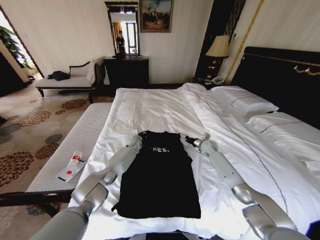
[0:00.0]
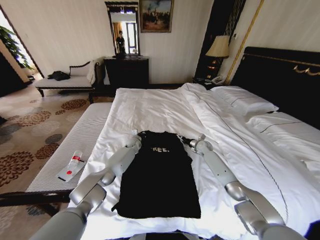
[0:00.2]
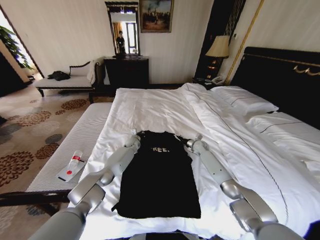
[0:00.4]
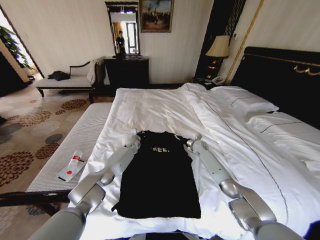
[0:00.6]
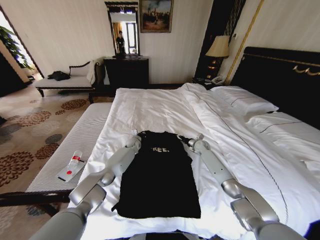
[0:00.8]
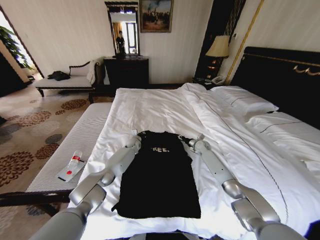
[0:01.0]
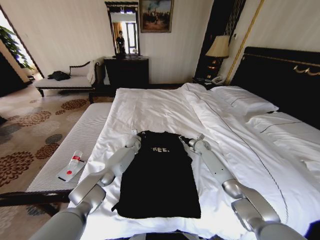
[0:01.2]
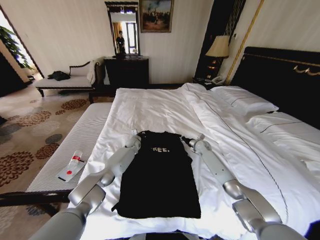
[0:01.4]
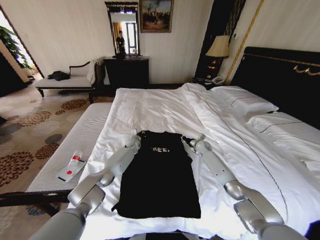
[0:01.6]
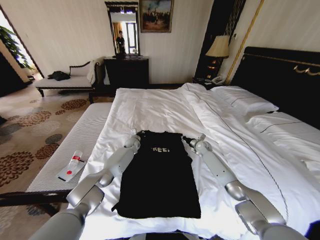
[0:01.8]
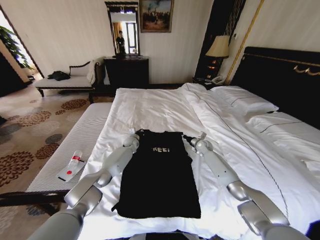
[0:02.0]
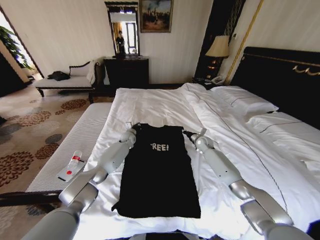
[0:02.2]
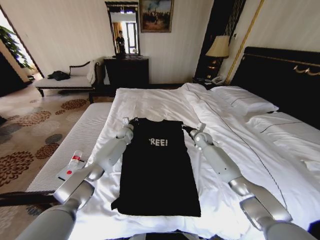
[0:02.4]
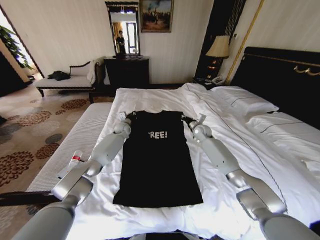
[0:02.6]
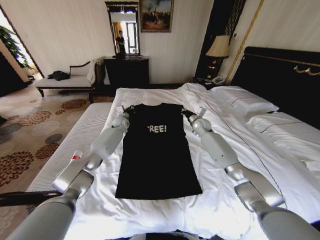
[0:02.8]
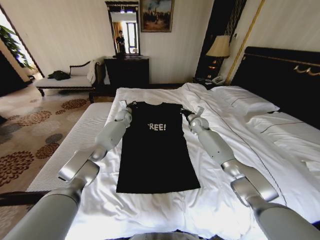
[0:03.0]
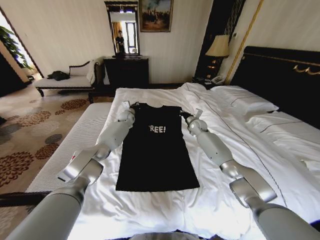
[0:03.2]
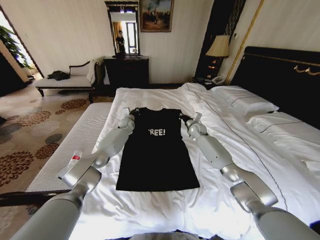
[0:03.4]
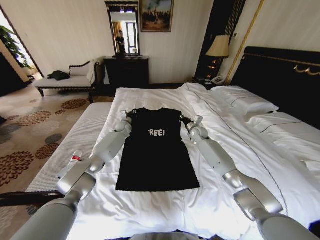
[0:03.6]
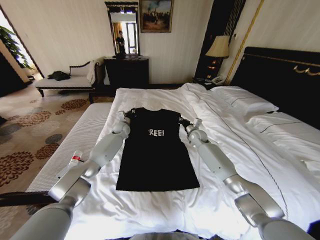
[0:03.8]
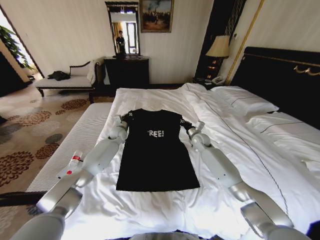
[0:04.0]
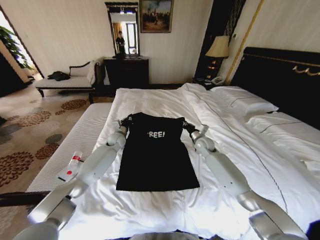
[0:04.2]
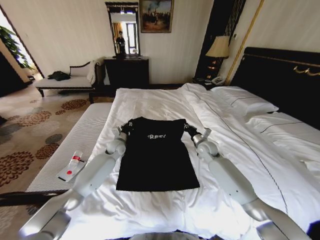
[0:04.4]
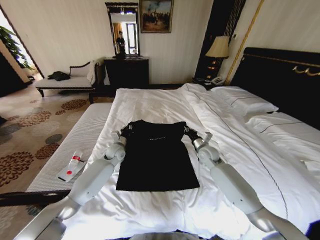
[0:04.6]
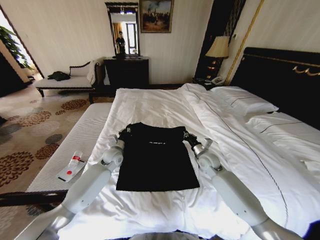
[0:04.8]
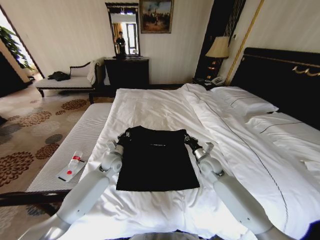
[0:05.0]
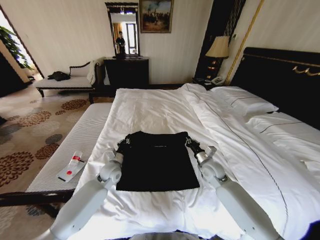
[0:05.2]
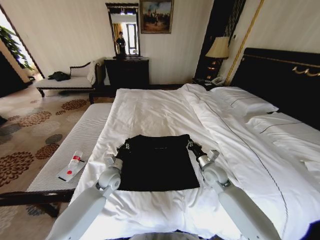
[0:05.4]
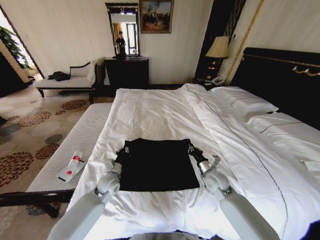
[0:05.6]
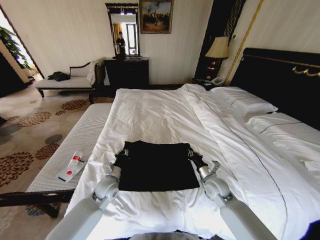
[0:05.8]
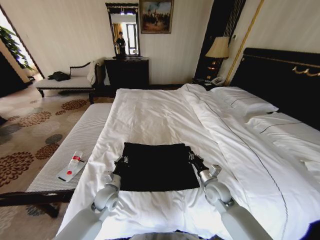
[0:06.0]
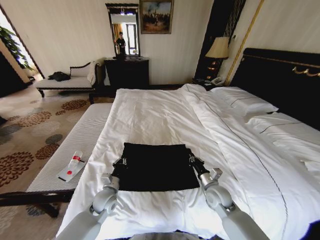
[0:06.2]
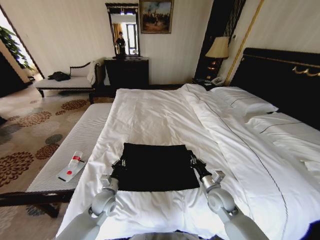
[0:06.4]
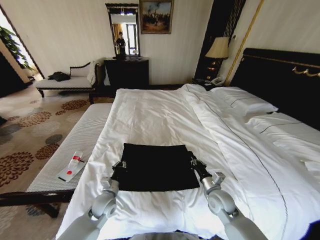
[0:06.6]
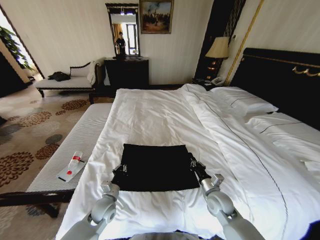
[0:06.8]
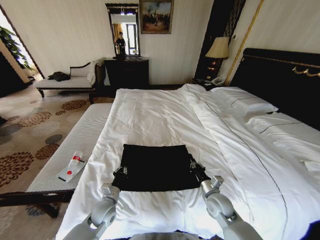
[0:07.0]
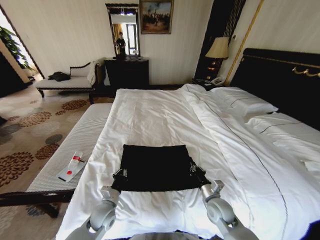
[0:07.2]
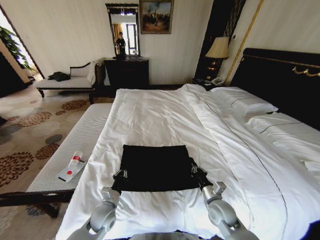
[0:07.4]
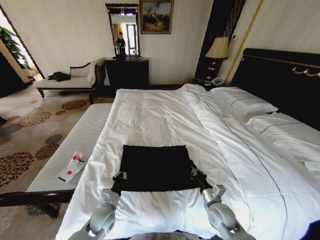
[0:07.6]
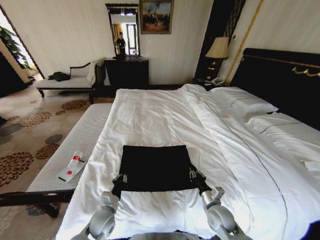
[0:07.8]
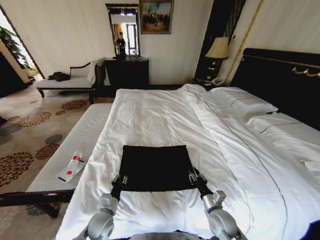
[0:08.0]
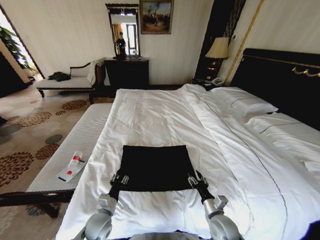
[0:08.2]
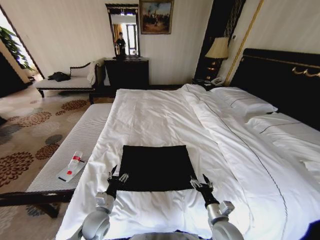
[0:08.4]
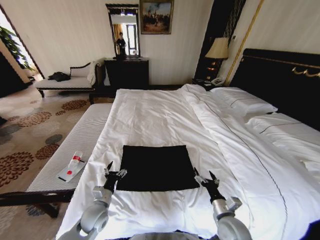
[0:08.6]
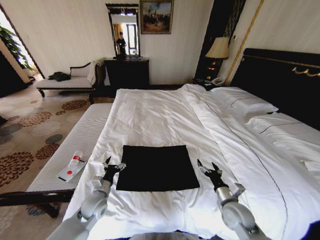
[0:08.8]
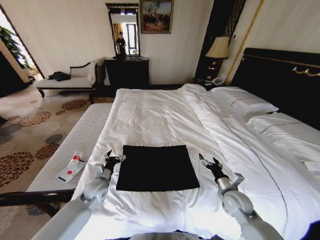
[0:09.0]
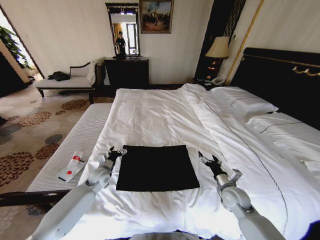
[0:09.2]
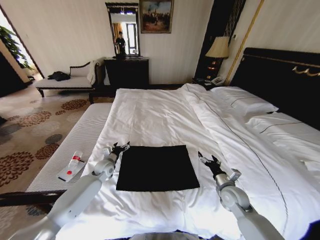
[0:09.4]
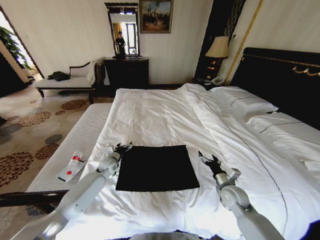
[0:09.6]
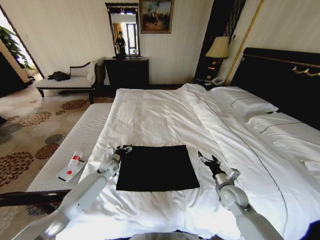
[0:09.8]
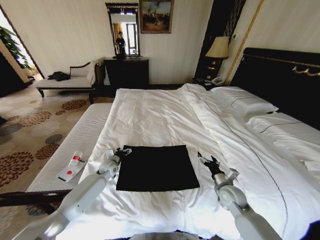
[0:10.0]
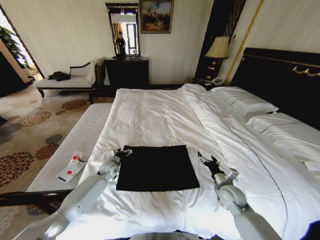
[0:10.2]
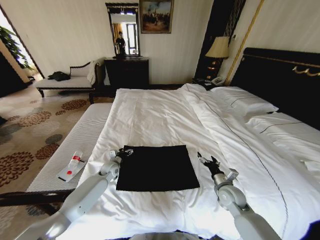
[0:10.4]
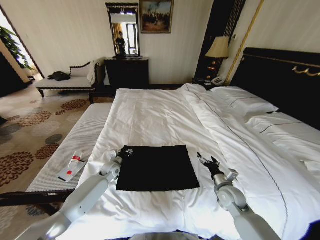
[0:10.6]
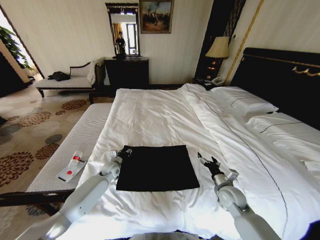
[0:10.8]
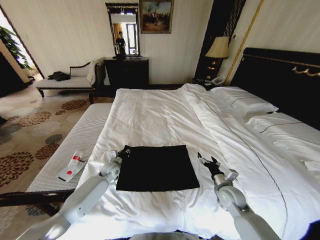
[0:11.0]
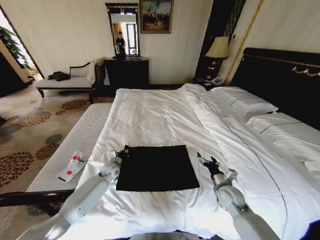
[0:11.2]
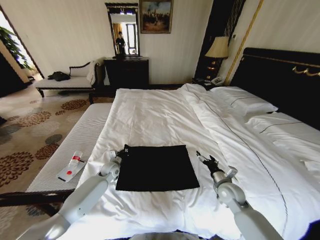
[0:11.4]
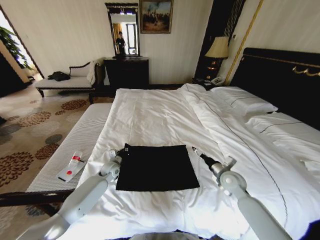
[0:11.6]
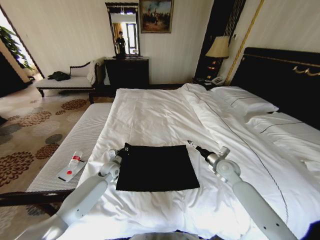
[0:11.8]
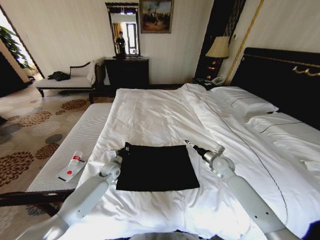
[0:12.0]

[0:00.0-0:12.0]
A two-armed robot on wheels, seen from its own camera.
Task of the whole recording: Fold the clothes on the bed.
0:00.0 to 0:01.6: The right gripper closes.
0:01.6 to 0:03.0: The grippers both shift upward and forward by about 15 cm.
0:03.0 to 0:04.4: The two grippers go roughly 15 cm backward and downward.
0:04.4 to 0:06.0: Both grippers travel together backward, about 20 cm.
0:06.0 to 0:07.6: The grippers both shift backward by some 5 cm.
0:07.6 to 0:09.0: The left gripper heads forward and upward, covering roughly 10 cm, and opens, while the right gripper heads to the right, covering about 5 cm, and opens.
0:09.0 to 0:10.4: The left gripper moves forward, about 15 cm.
0:10.4 to 0:12.0: The right gripper is displaced forward by some 15 cm; the left gripper closes.

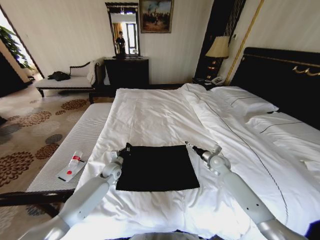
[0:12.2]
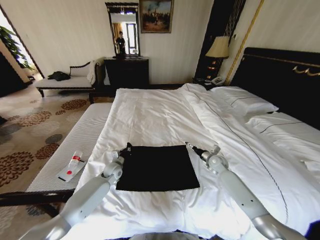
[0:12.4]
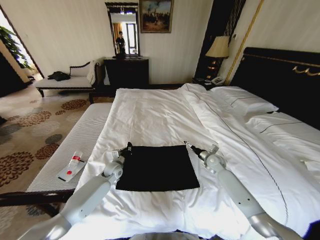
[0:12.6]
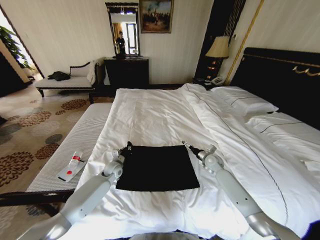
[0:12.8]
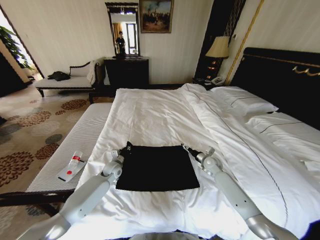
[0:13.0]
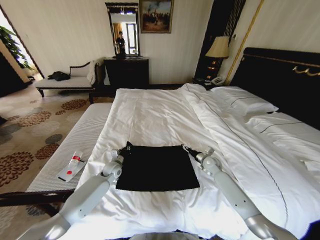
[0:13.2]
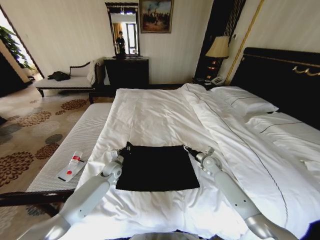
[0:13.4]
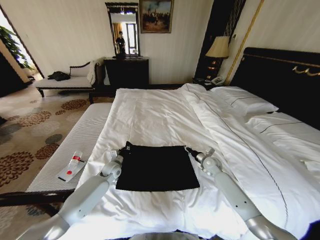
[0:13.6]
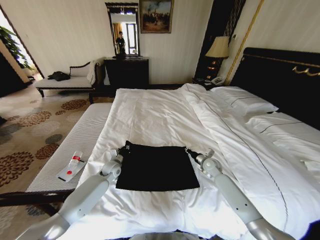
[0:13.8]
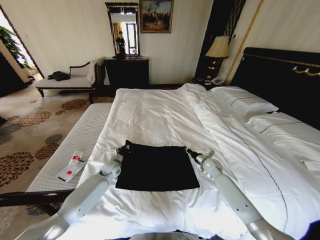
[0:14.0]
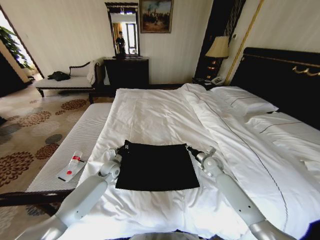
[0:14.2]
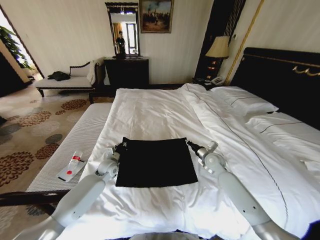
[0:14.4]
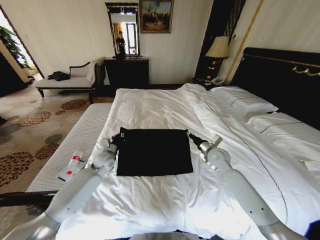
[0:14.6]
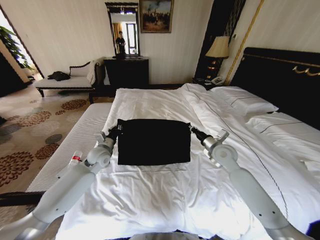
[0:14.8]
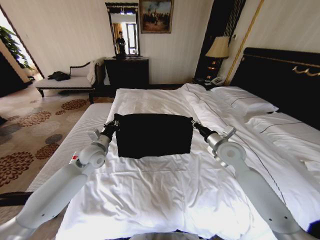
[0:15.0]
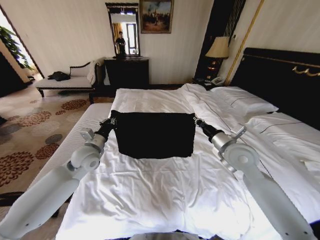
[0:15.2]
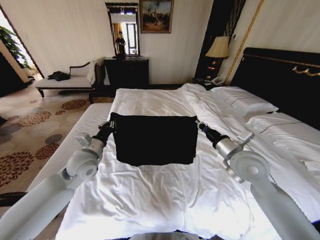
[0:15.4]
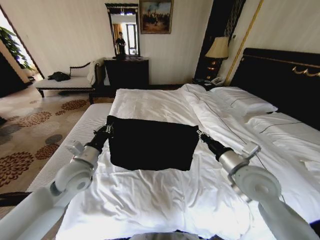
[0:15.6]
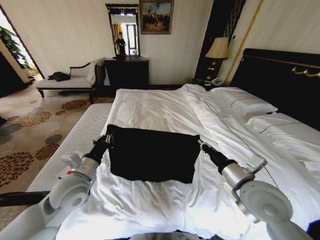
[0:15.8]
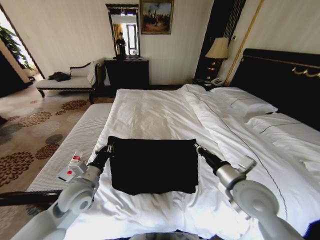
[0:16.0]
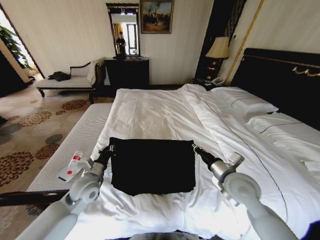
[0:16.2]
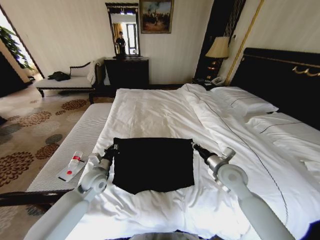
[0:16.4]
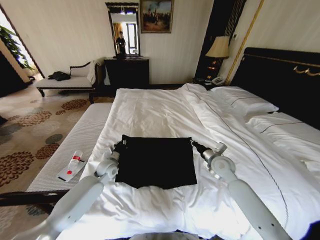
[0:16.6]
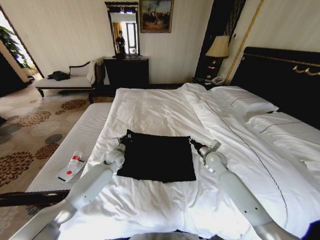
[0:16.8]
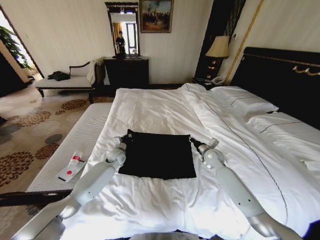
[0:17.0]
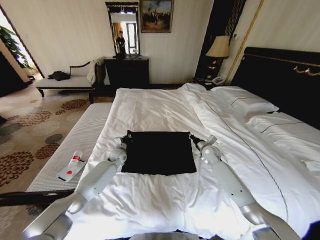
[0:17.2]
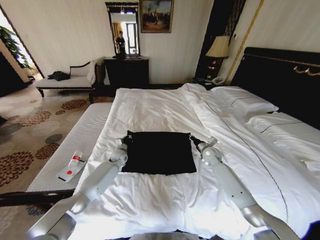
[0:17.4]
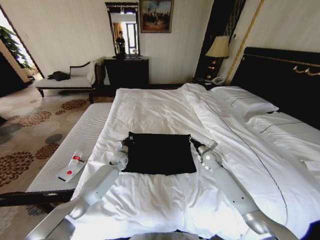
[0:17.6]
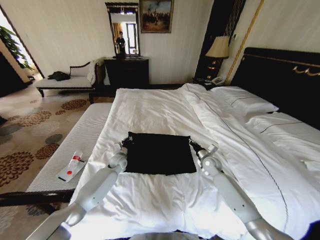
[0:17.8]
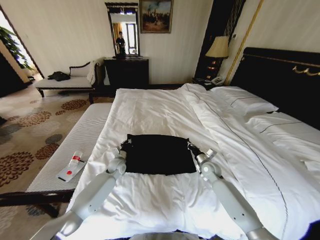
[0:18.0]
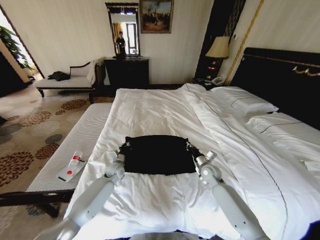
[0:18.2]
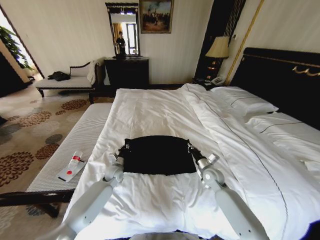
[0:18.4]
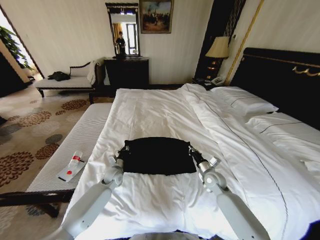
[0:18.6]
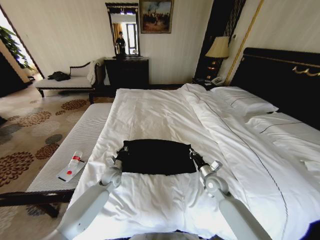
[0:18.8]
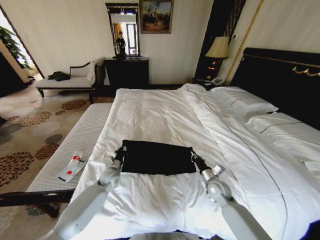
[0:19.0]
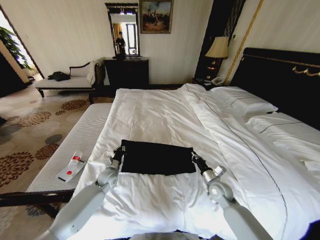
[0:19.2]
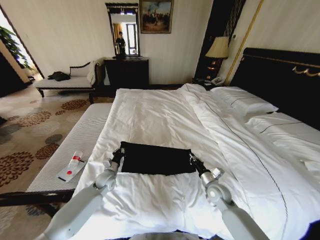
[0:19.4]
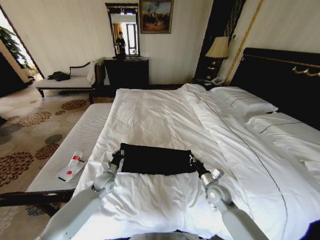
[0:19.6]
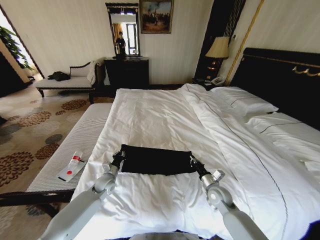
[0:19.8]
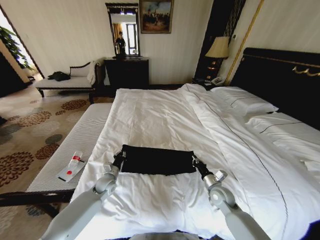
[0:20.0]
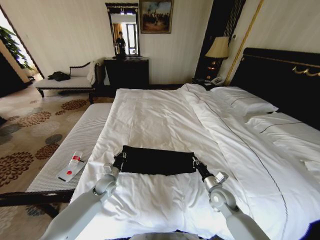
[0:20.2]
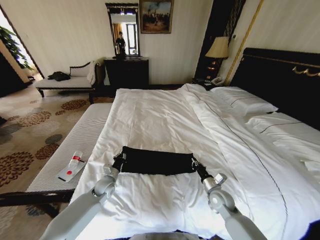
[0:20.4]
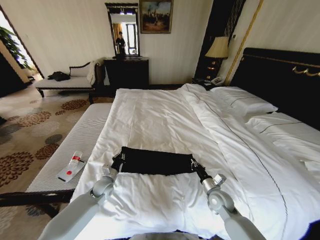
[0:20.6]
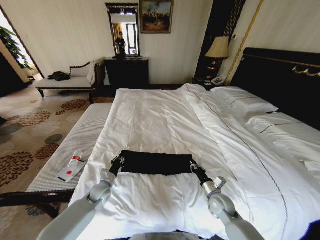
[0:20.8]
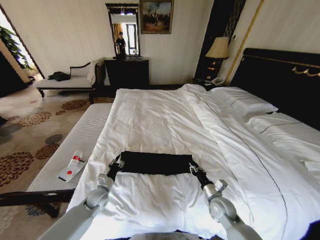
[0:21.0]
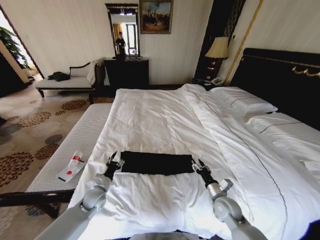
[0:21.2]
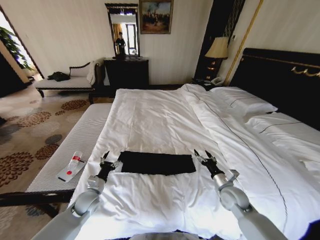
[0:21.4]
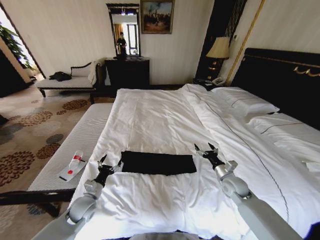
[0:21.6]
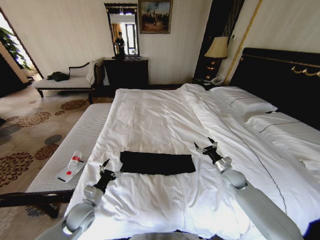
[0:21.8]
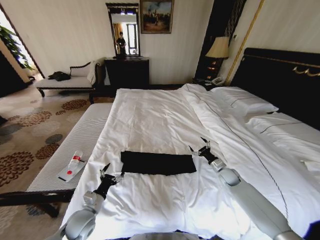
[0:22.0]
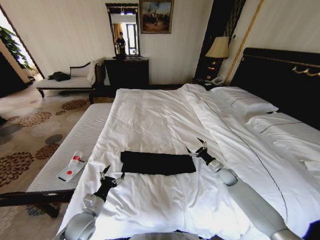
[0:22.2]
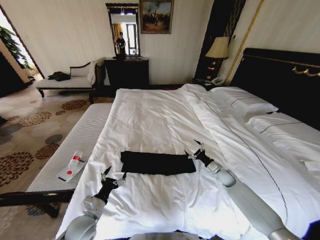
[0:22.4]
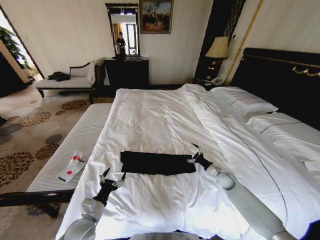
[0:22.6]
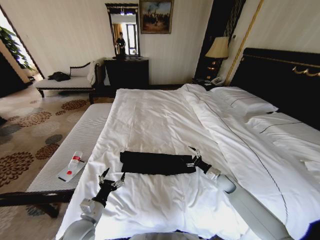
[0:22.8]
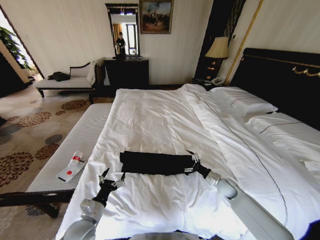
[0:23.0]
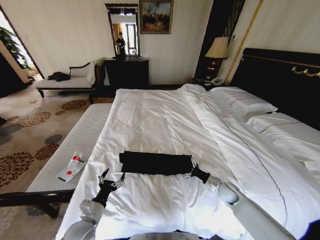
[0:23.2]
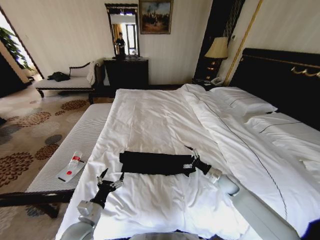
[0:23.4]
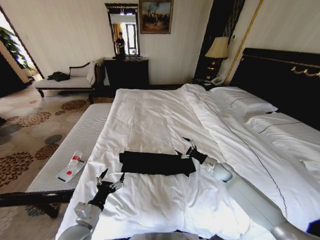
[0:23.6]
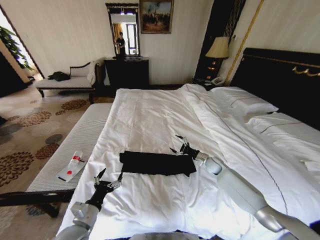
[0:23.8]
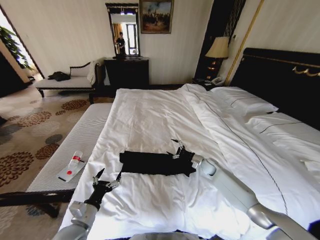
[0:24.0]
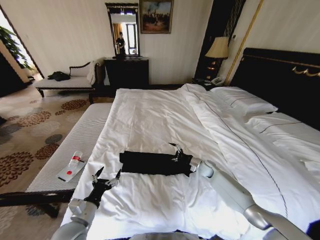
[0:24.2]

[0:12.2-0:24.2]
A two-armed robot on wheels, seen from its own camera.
Task of the whole recording: Fold the clothes on the bed.
0:12.2 to 0:13.8: The right gripper closes.
0:13.8 to 0:15.2: The two grippers go roughly 20 cm upward.
0:15.2 to 0:16.6: The grippers both shift downward by roughly 15 cm. The right gripper travels backward and back again, roughly 15 cm each way.
0:16.6 to 0:18.2: Both grippers move downward, about 10 cm. The left gripper moves about 10 cm forward and comes back; the right gripper goes forward and returns, some 10 cm each way.
0:18.2 to 0:19.8: Both grippers travel together backward, some 10 cm.
0:19.8 to 0:21.2: The right gripper opens up. The left gripper travels backward by approximately 5 cm, and opens its fingers.
0:21.2 to 0:22.6: The left gripper is displaced backward by some 10 cm, and opens its fingers, while the right gripper shifts some 20 cm forward and to the right, and opens its fingers.
0:22.6 to 0:24.2: The left gripper changes place by approximately 5 cm. The right gripper shifts approximately 10 cm to the left and forward.
